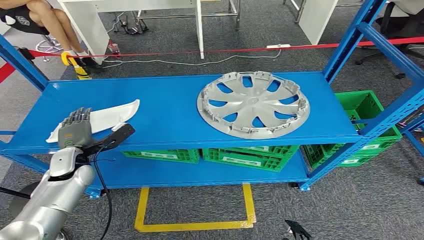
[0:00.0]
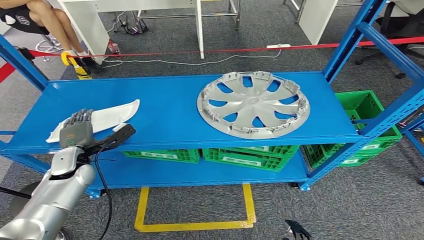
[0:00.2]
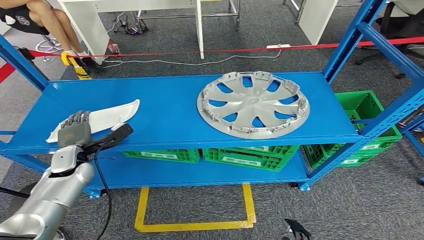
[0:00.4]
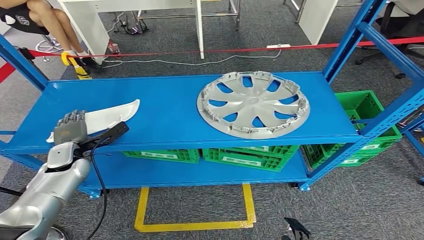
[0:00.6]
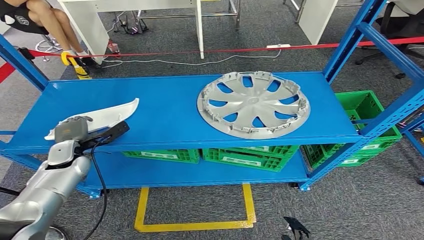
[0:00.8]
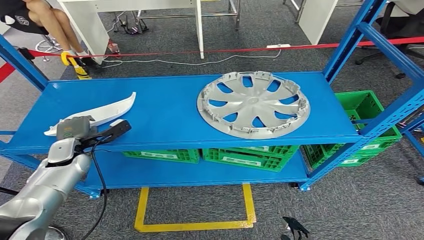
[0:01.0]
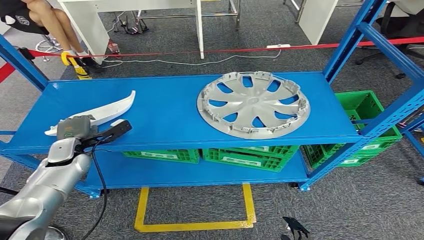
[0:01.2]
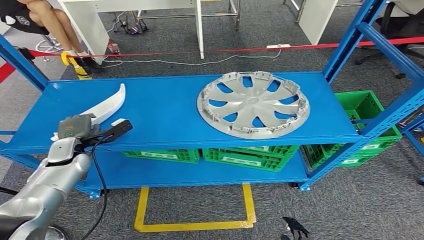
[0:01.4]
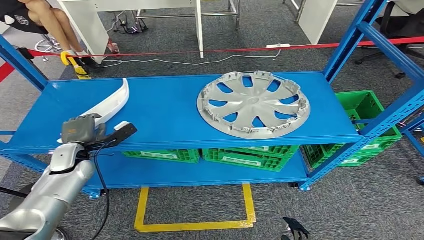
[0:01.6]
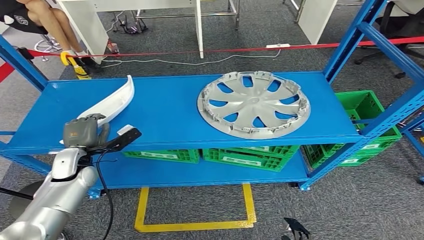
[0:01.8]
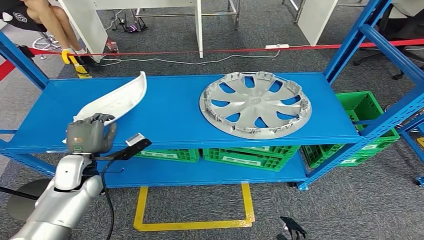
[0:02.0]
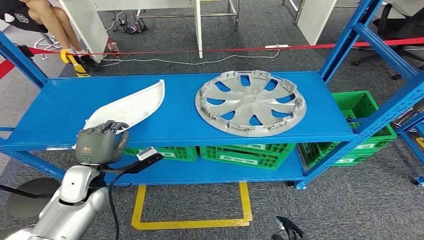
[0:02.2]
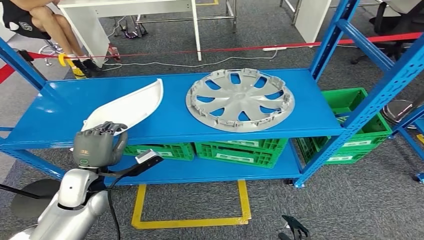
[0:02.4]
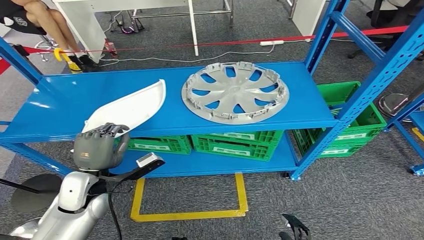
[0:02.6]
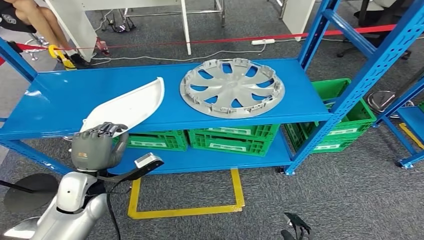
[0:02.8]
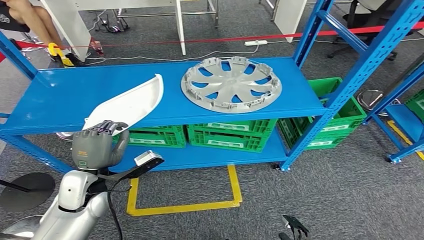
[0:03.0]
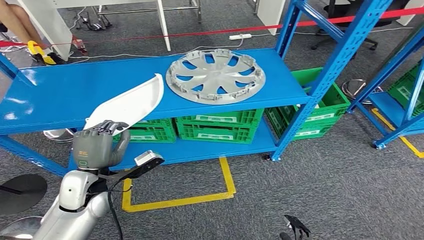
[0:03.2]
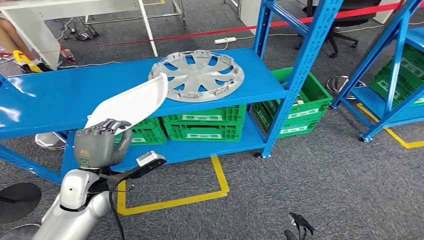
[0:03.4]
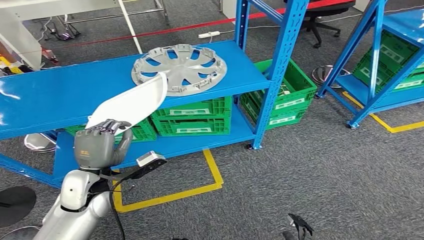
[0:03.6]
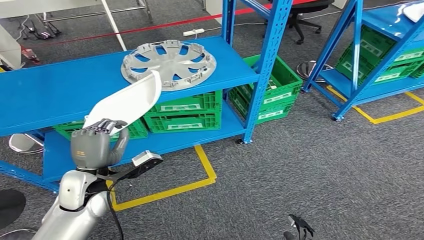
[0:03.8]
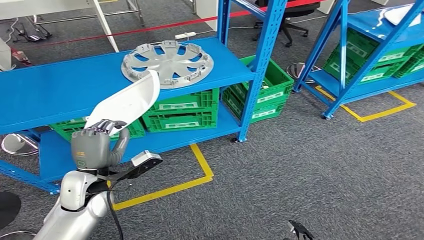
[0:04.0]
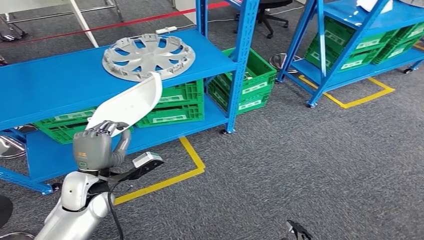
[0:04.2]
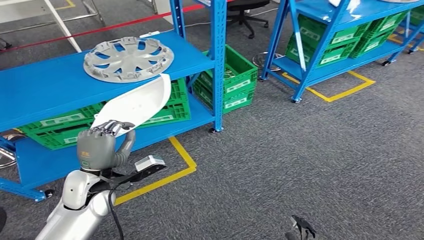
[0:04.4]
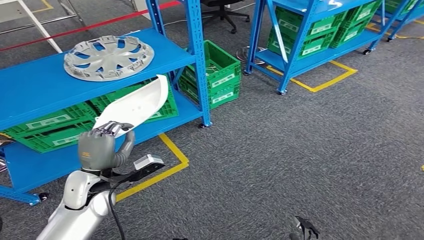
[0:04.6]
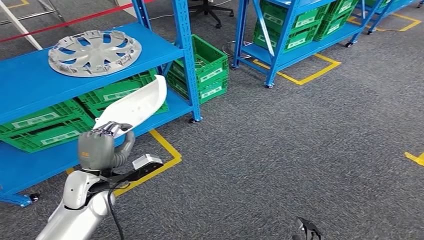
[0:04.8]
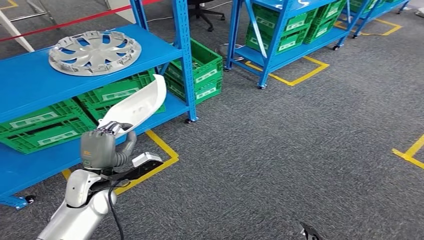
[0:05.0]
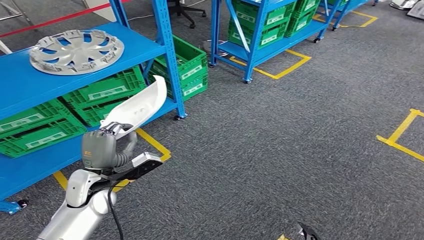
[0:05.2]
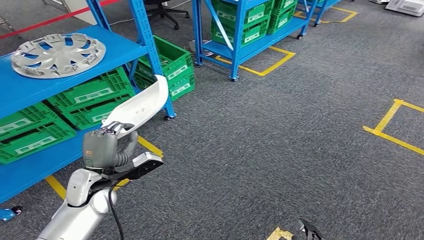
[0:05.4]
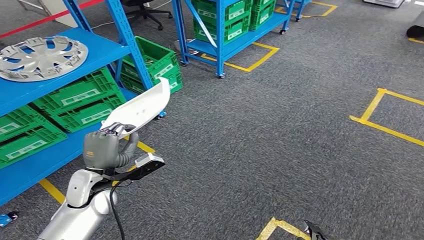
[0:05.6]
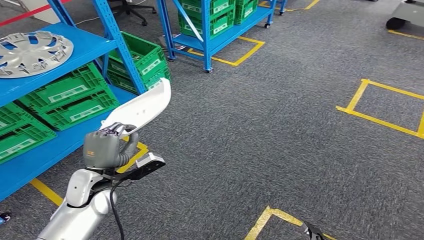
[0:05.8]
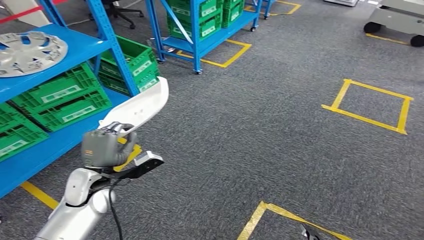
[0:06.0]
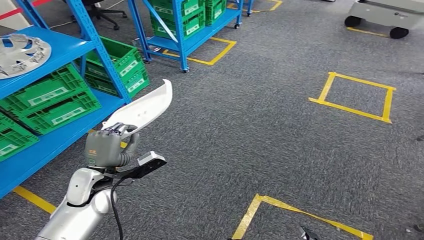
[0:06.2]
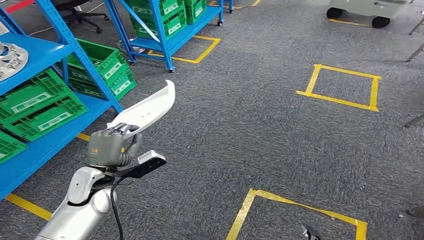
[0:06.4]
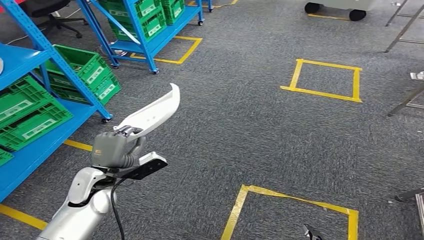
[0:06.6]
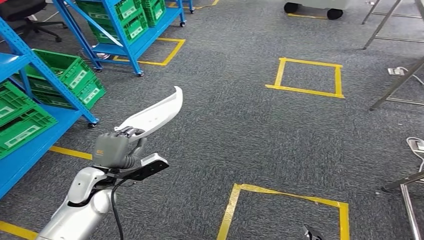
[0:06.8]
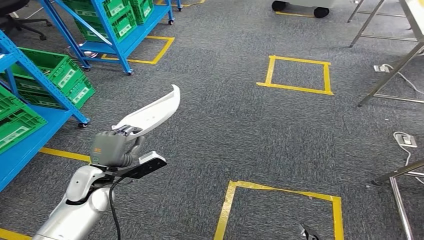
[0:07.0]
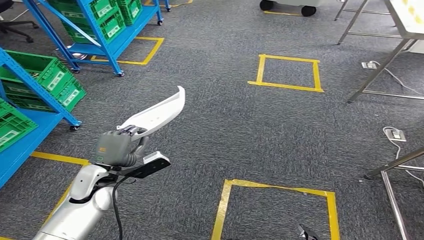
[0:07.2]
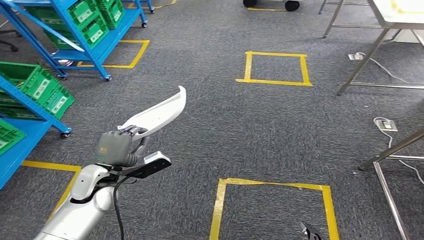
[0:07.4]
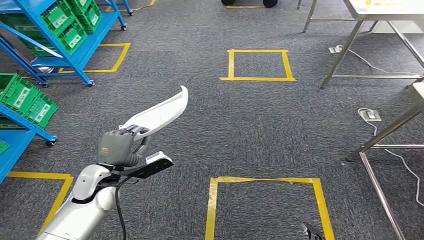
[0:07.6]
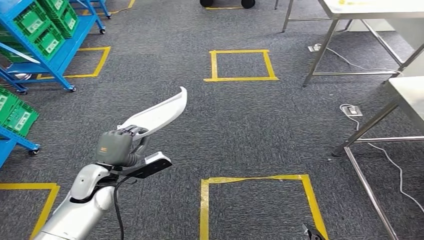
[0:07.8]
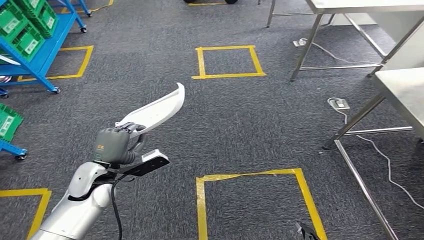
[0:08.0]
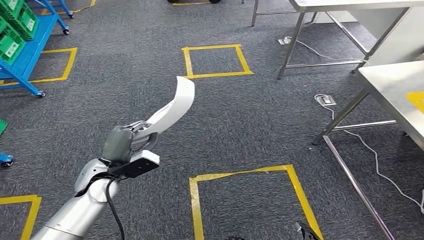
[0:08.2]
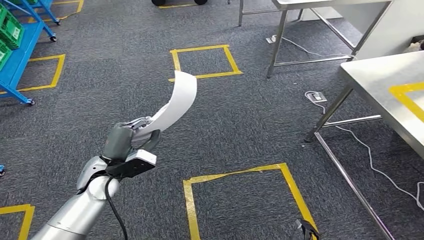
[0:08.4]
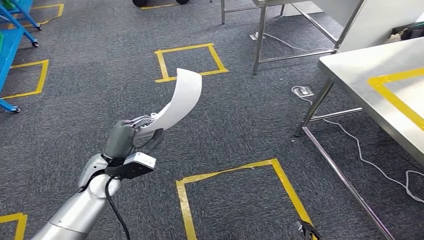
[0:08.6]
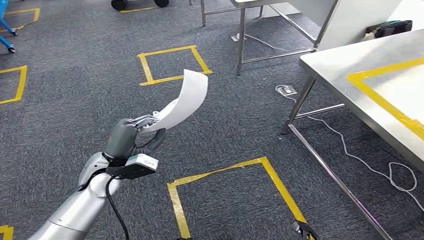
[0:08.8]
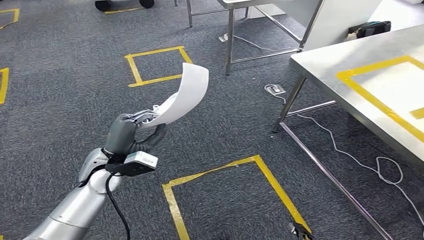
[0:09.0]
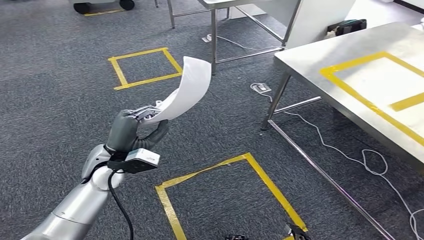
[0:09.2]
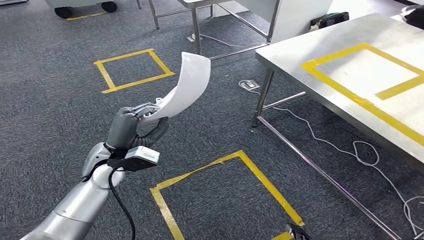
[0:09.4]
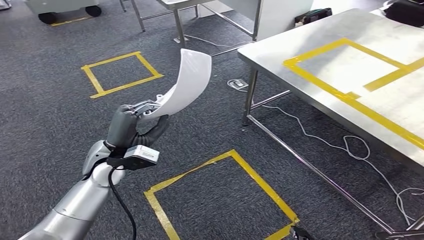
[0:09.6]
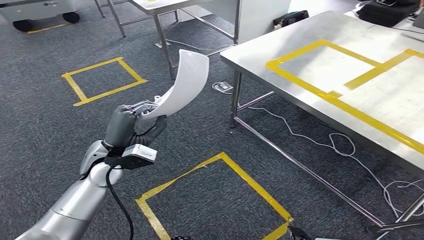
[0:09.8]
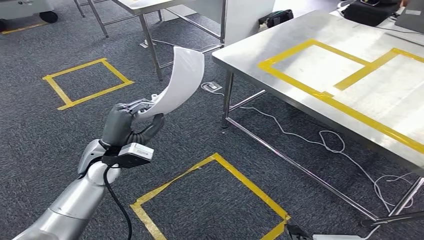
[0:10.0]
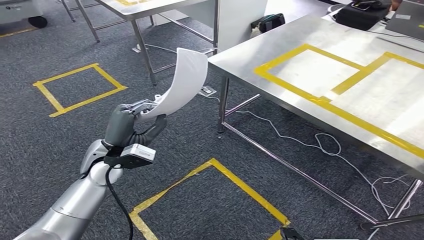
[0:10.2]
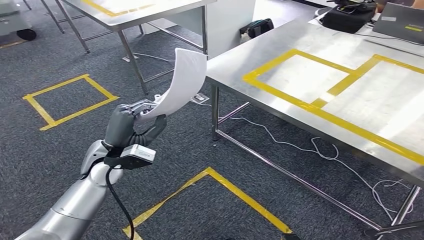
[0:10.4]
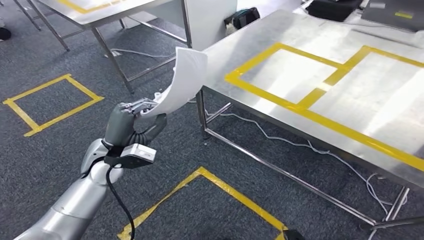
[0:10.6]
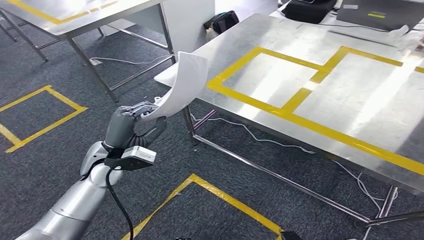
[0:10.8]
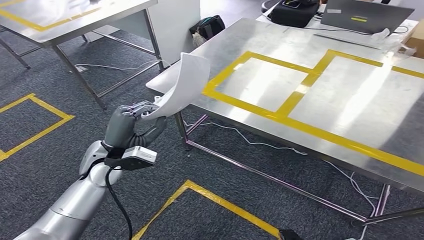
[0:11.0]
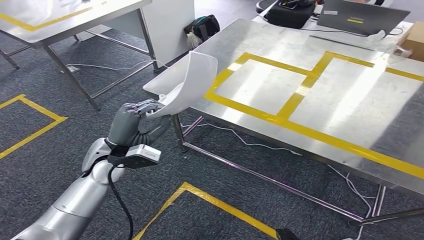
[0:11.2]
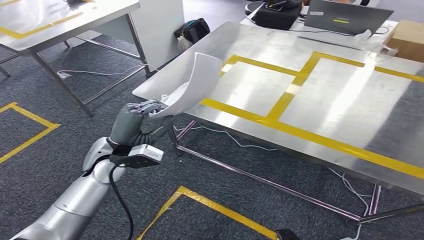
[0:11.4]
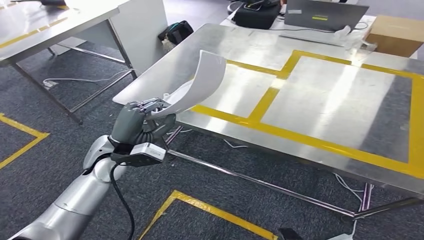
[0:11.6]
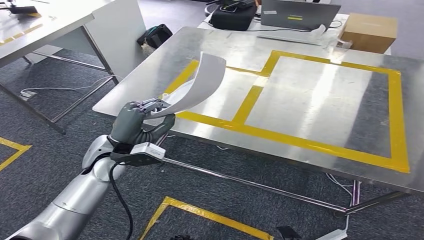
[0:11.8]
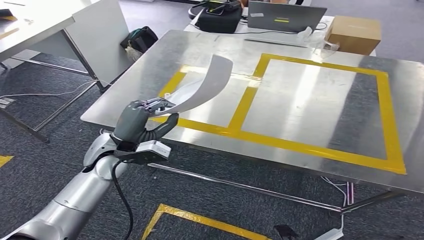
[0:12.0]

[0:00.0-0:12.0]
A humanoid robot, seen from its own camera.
Step, 0:00.0 to 0:03.2: Take small components from the rack.
Step, 0:03.4 to 0:11.6: Move the small parts to the workbench.

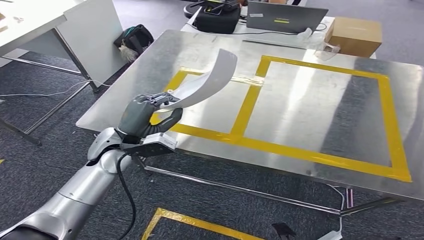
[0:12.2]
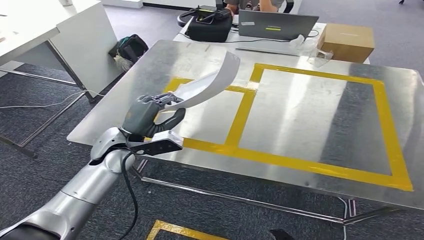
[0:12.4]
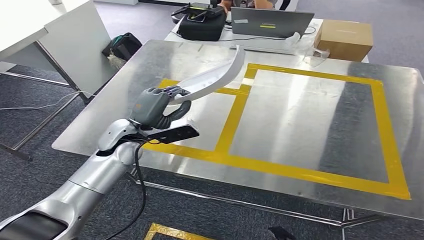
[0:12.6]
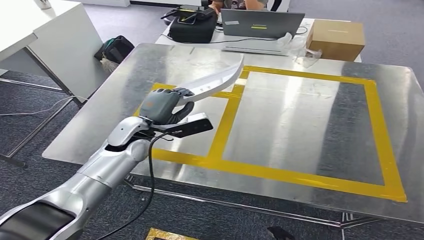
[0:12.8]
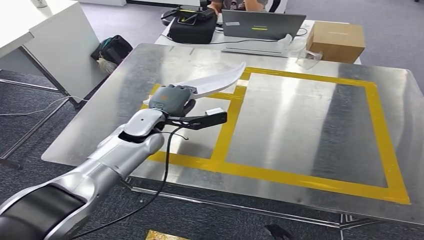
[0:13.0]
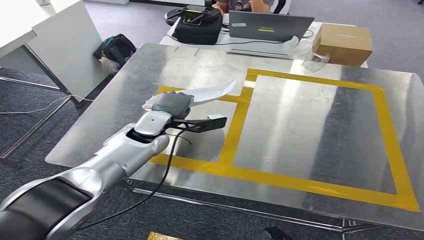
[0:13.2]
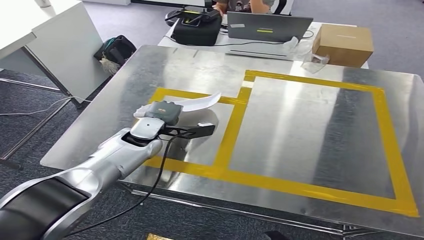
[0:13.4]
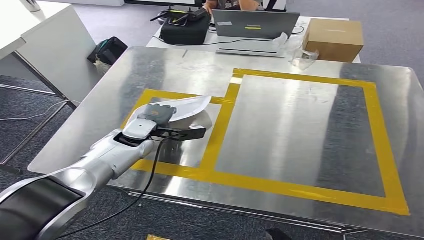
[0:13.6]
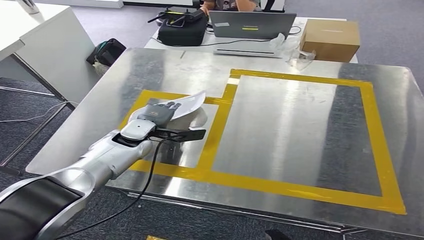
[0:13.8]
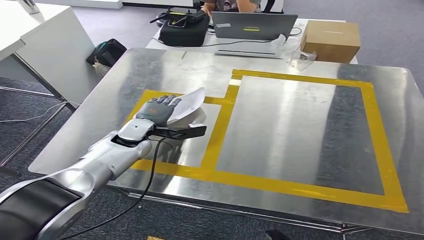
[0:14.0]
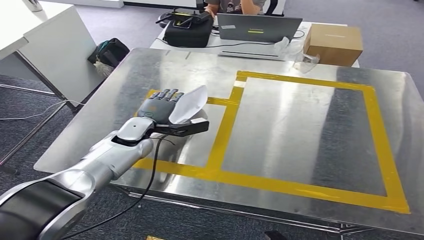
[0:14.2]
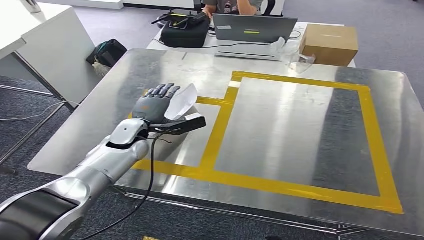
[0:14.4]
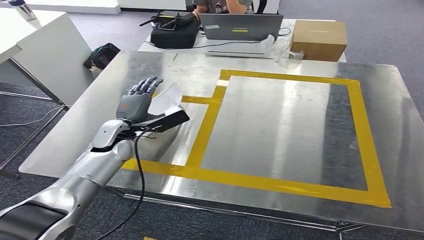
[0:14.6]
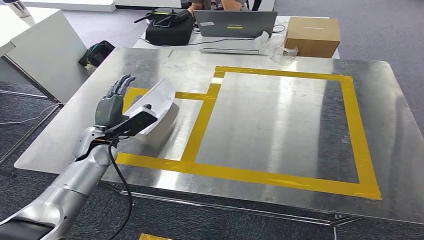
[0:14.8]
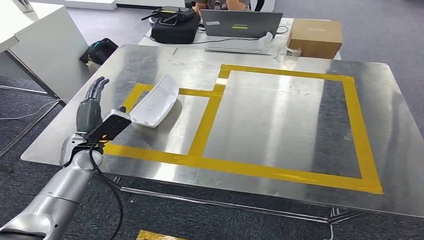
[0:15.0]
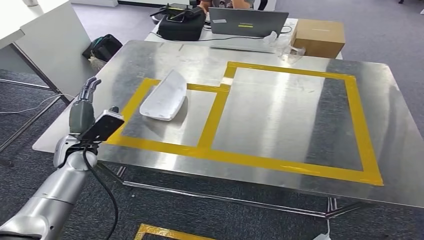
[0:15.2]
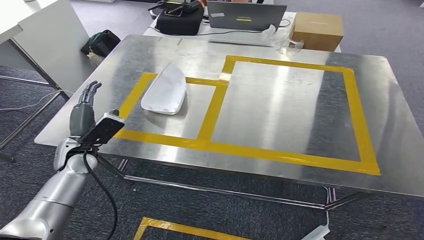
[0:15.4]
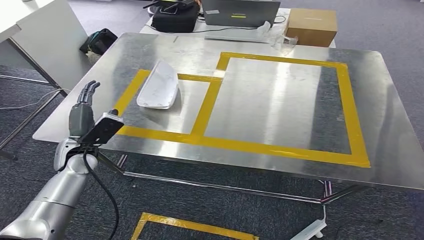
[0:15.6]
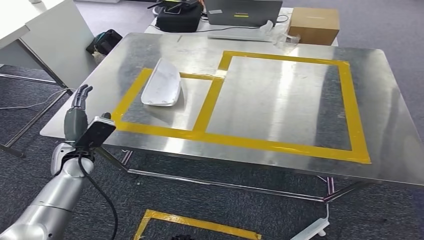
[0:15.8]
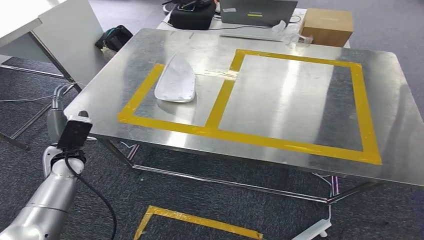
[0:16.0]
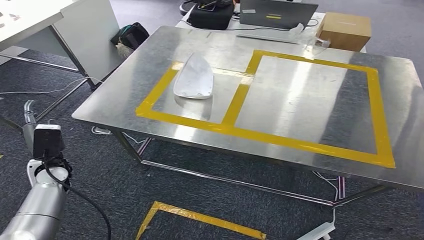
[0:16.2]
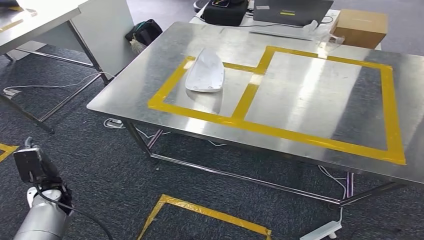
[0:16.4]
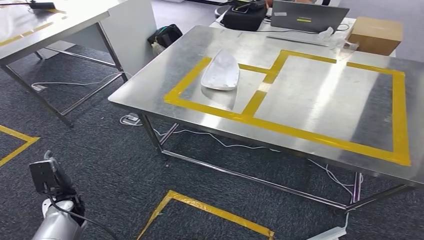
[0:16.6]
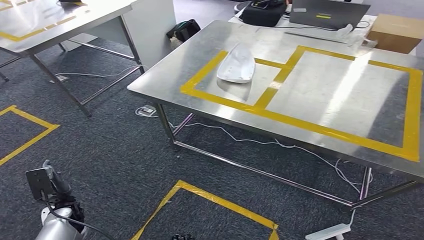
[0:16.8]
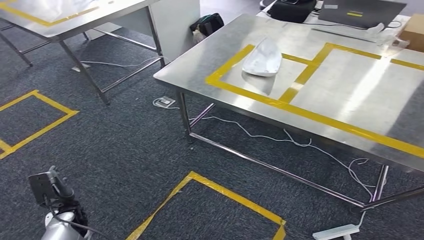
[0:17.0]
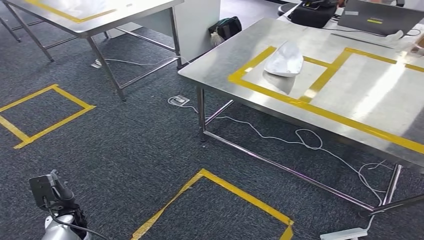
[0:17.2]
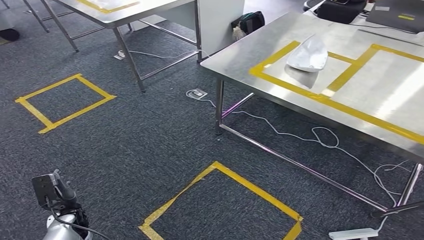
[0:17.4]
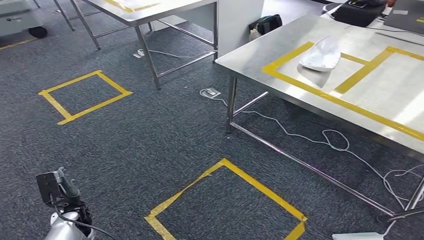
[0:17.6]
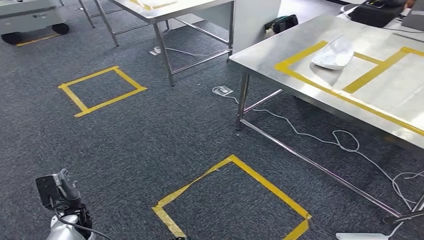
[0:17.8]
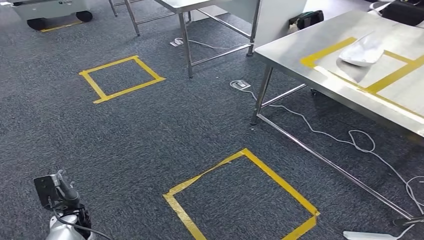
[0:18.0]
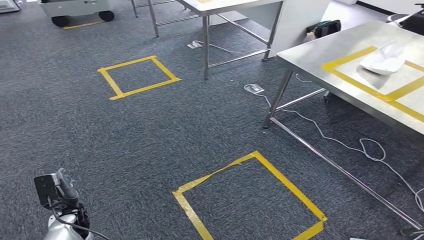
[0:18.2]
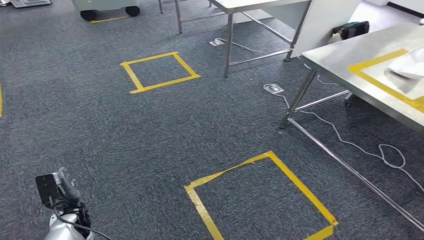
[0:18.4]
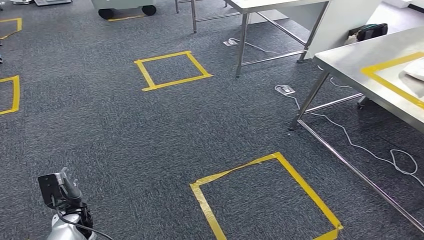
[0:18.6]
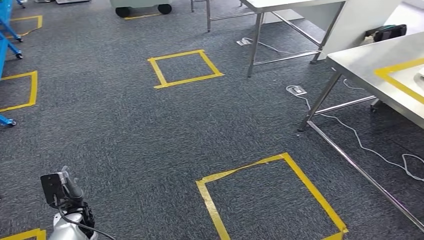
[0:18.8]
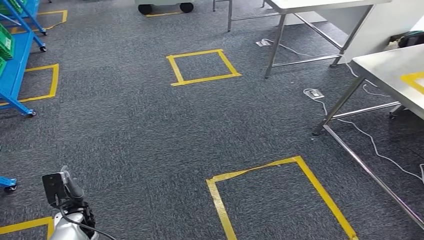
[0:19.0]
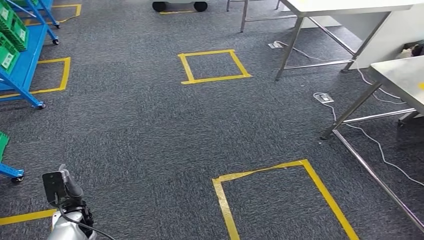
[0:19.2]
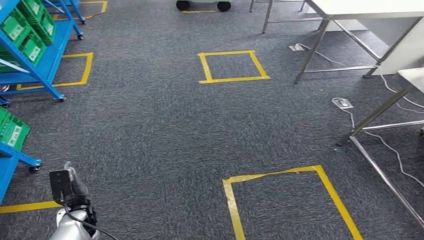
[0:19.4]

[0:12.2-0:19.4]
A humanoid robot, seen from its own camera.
Step, 0:12.2 to 0:16.6: Insert the small parts into the corresponding holes on the workbench.
